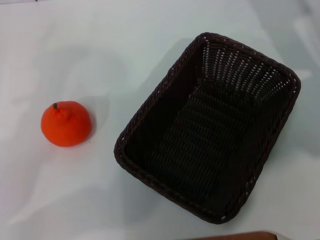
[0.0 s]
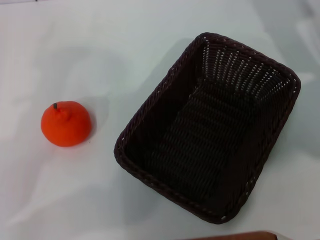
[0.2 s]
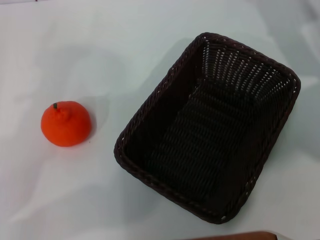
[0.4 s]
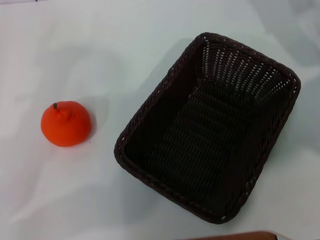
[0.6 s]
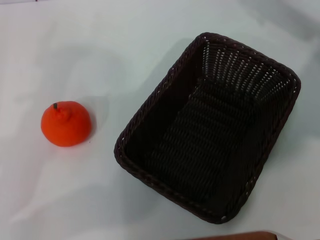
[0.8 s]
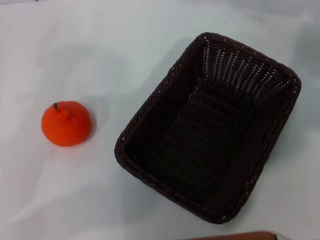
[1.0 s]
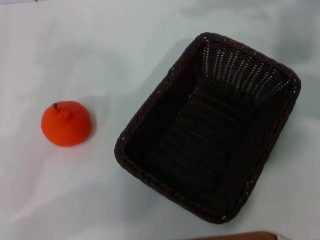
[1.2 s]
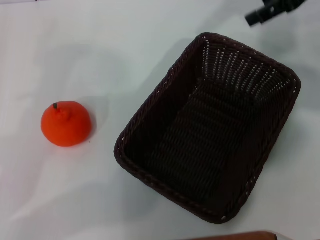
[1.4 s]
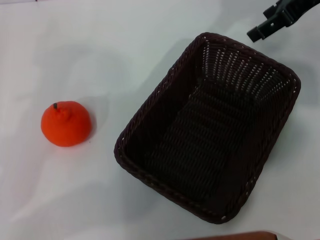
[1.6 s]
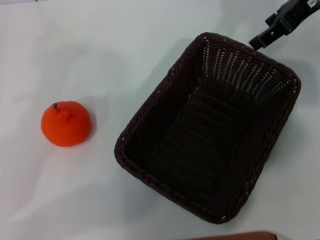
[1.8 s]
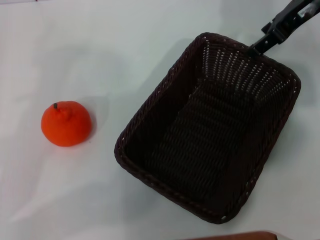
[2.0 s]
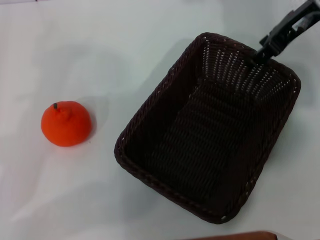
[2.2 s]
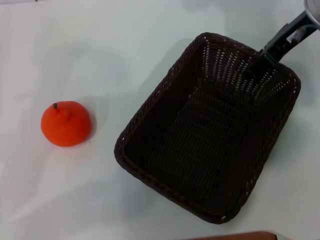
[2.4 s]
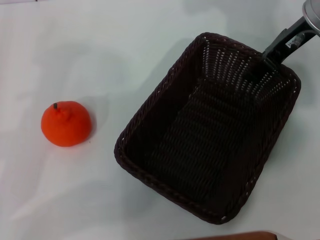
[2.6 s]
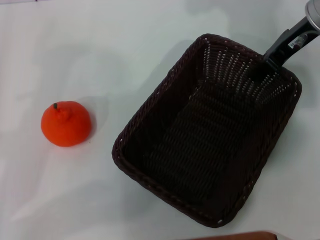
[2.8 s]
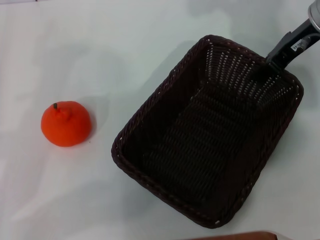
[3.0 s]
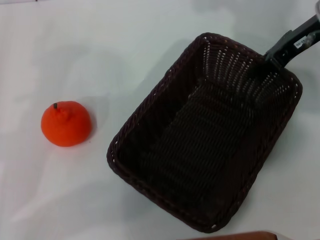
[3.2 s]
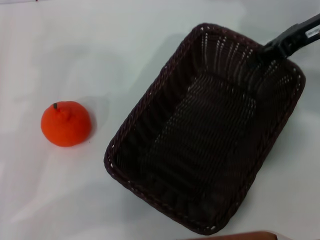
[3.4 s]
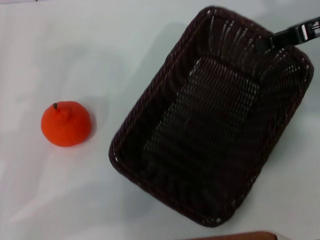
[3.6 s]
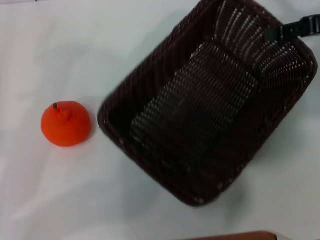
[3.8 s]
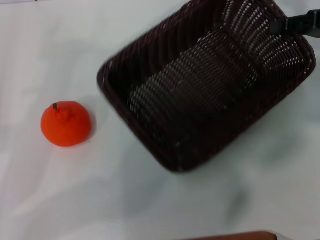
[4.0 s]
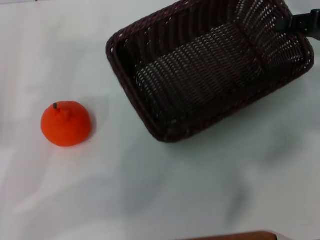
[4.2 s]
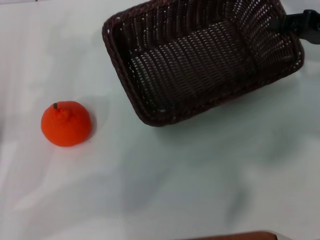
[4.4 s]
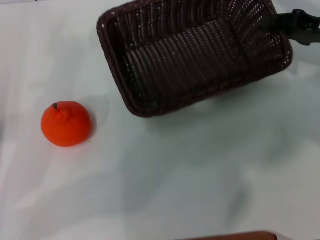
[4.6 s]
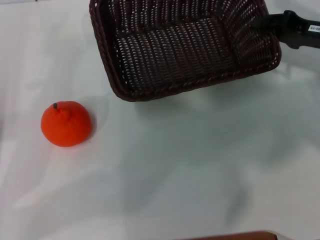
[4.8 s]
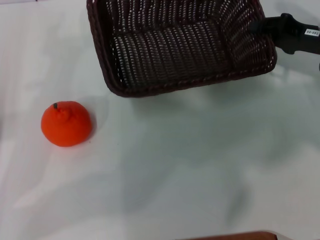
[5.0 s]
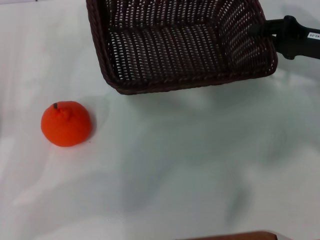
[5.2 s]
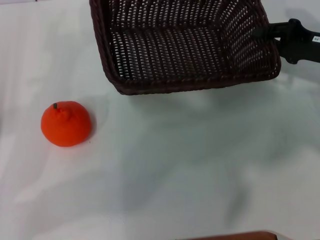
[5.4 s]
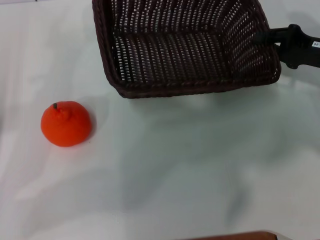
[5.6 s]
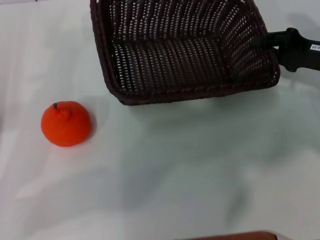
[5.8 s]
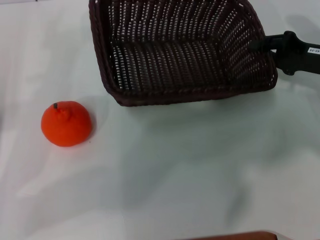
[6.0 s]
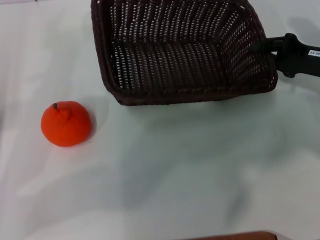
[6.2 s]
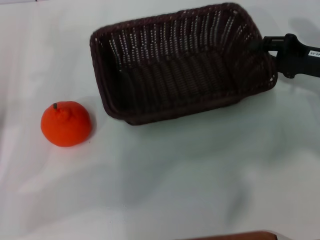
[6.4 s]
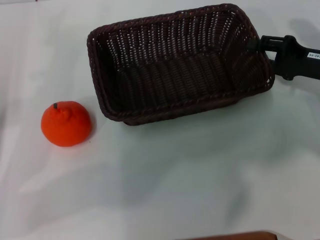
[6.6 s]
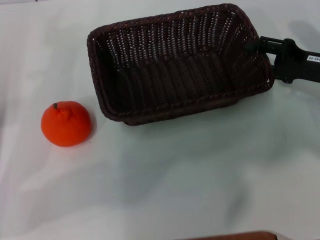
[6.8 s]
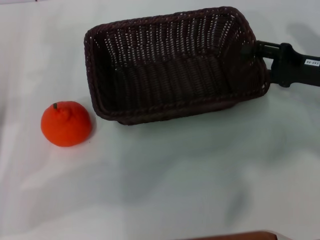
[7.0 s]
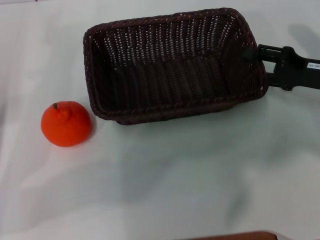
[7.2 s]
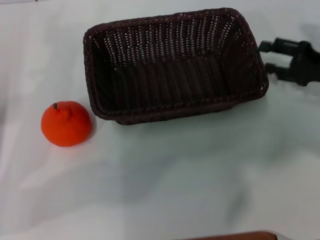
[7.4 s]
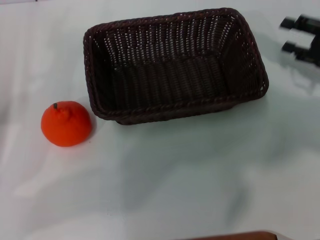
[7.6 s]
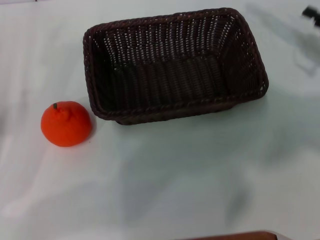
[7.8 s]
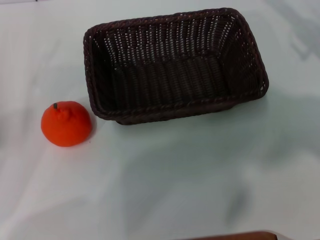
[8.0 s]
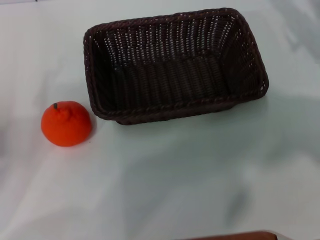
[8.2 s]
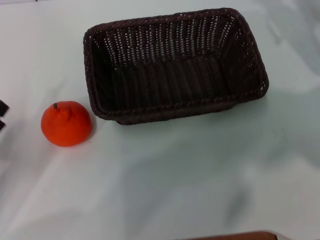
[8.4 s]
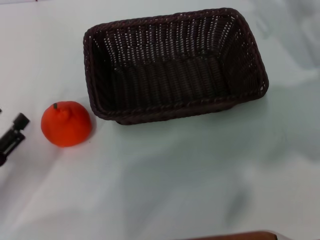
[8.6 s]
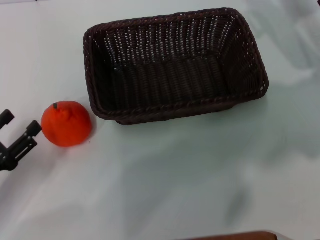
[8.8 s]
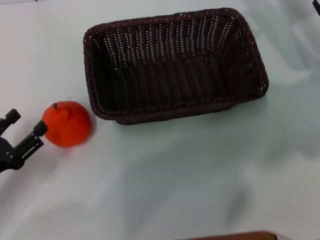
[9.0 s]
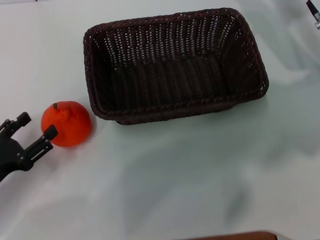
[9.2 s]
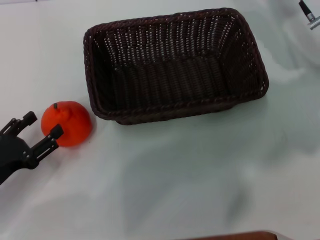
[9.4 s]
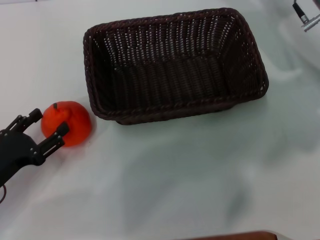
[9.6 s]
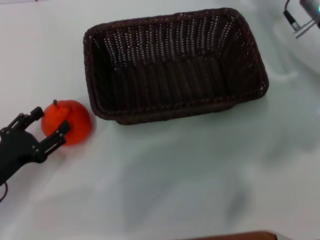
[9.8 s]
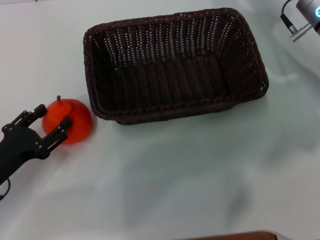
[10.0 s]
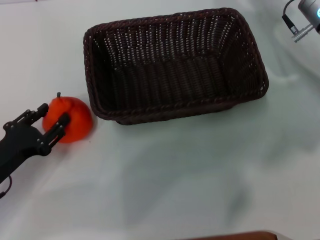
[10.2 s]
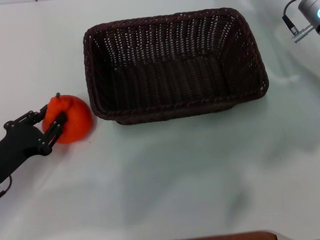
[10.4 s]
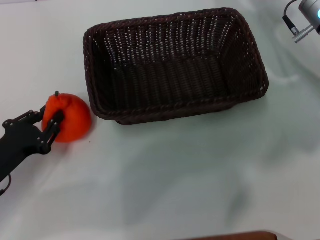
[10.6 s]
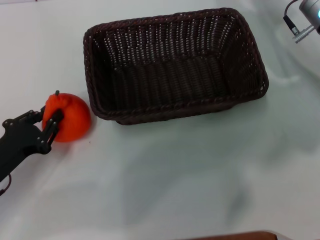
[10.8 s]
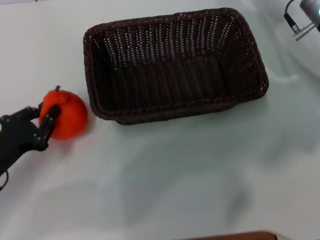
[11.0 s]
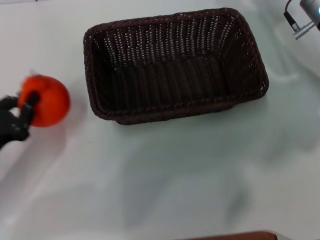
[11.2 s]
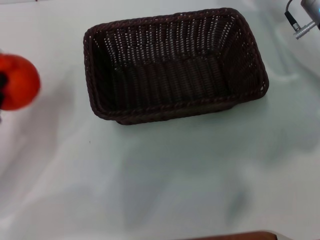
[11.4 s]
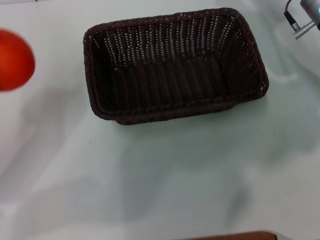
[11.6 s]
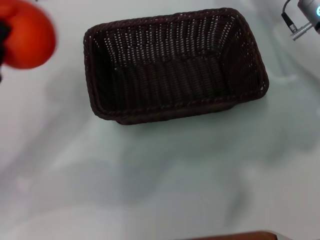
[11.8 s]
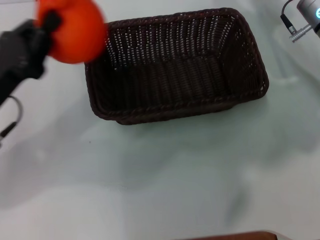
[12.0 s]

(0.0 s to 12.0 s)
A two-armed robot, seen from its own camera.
Task of the whole recording: the right gripper pick up the black basket and place it horizontally in the middle of the table, the left gripper pick up the orange and place it into the black basket.
Step, 0.0 s - 4.0 s: Pick up the dark basket with the right gripper.
Step, 4.2 s - 7.4 s: Place the dark basket in the center of view with the right gripper.
Step, 7.6 s - 11.0 s: Pick up the orange with the left gripper.
0.0 s - 1.6 s: The right gripper travels upward by some 10 cm.
1.6 s - 3.0 s: The right gripper travels downward by roughly 5 cm, and closes.
3.0 s - 4.4 s: The right gripper moves to the right and downward, some 10 cm.
4.4 s - 6.0 s: The right gripper shifts by approximately 5 cm.
6.0 s - 7.6 s: The right gripper opens up.
7.6 s - 9.0 s: The right gripper moves forward and to the left, about 10 cm. The left gripper shifts some 10 cm backward and downward.
9.0 s - 10.4 s: The grippers stay close to where they were, moving slightly.
10.4 s - 12.0 s: The left gripper travels upward by roughly 10 cm, and closes up.

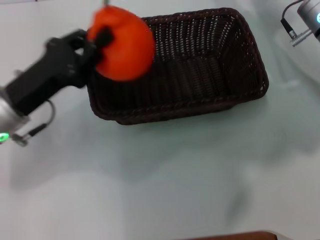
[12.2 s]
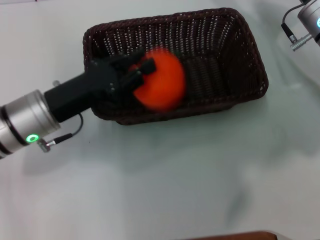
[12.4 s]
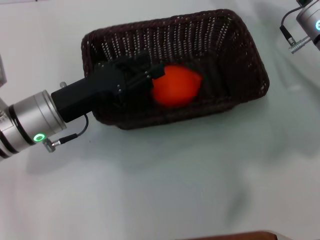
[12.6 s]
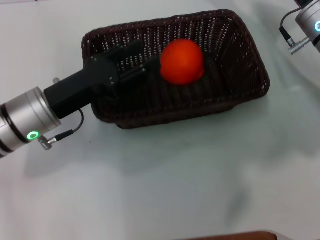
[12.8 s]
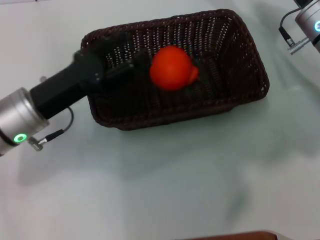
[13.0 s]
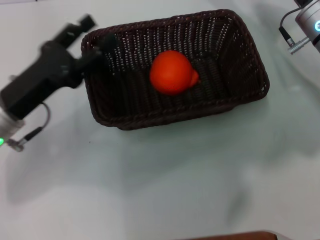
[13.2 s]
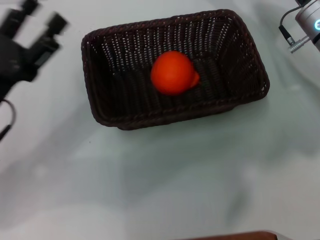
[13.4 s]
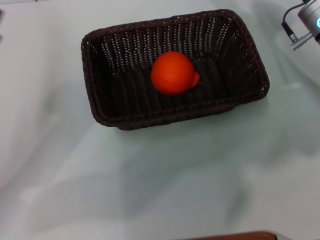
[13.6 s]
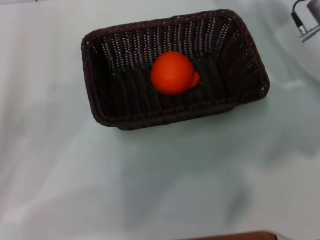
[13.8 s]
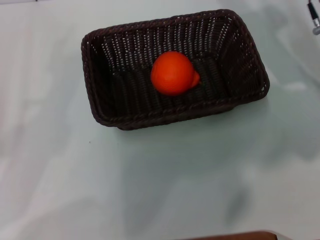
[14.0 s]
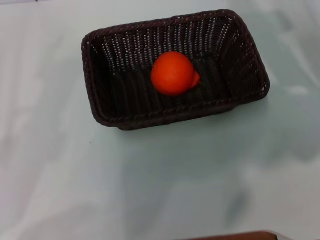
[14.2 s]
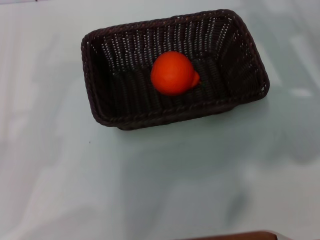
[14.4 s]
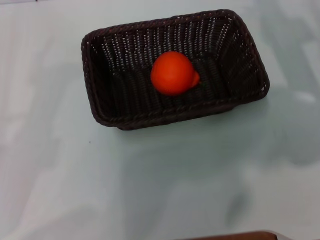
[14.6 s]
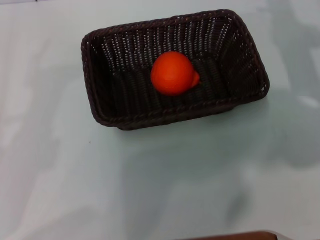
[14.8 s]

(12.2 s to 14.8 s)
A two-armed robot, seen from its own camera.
Task of the whole recording: the right gripper pick up the black basket and place it horizontally in the middle of the table, the left gripper pick up the orange and place it into the black basket.
12.2 s - 13.4 s: The left gripper opens.
13.4 s - 14.8 s: The right gripper moves to the right, some 5 cm. The left gripper heads to the left and backward, covering roughly 15 cm.
